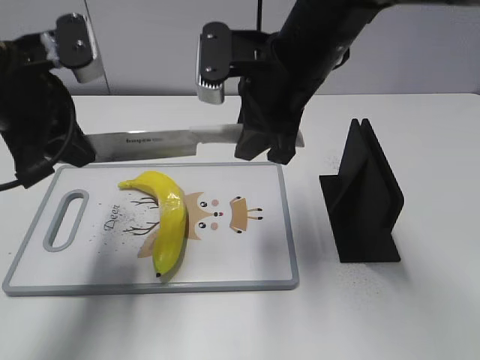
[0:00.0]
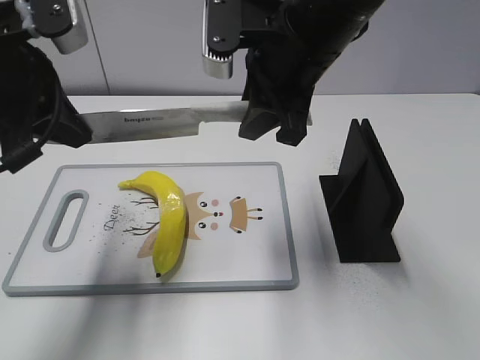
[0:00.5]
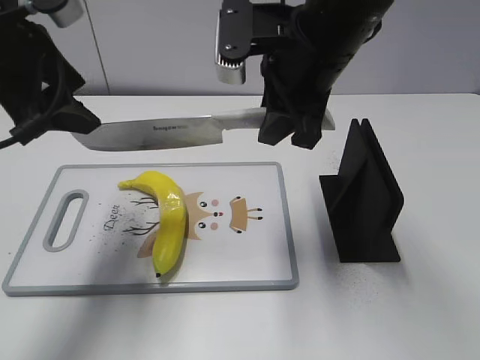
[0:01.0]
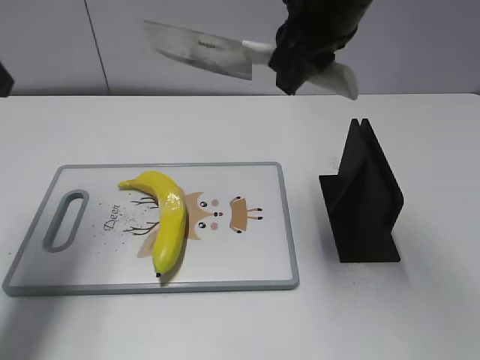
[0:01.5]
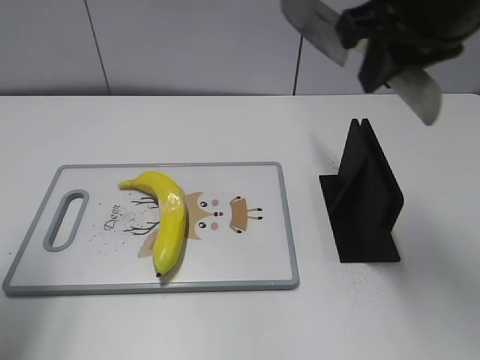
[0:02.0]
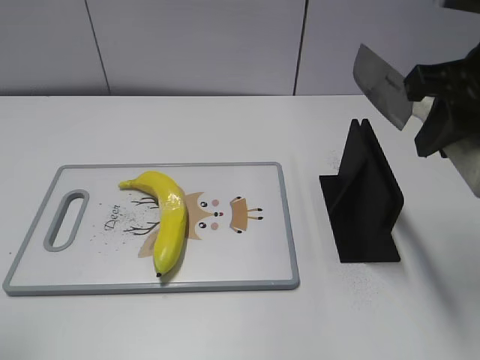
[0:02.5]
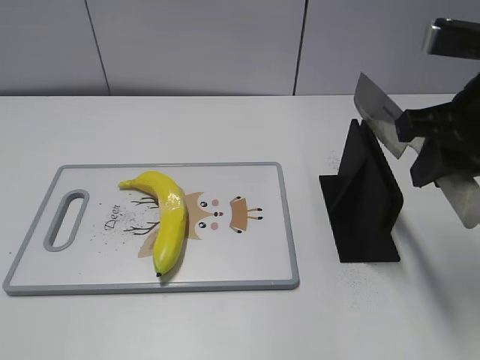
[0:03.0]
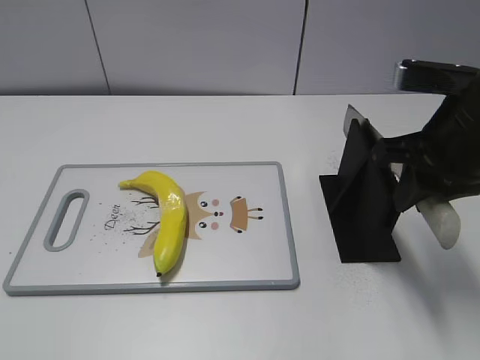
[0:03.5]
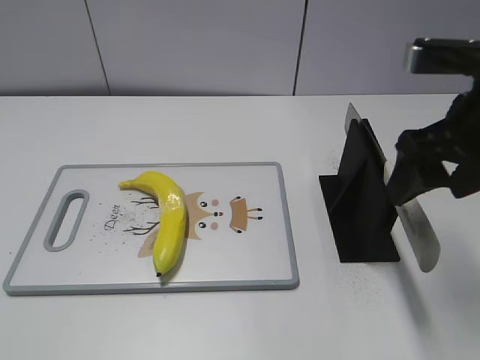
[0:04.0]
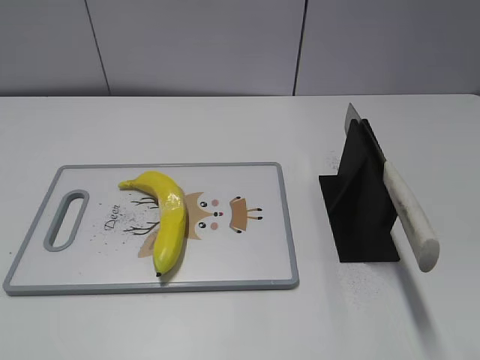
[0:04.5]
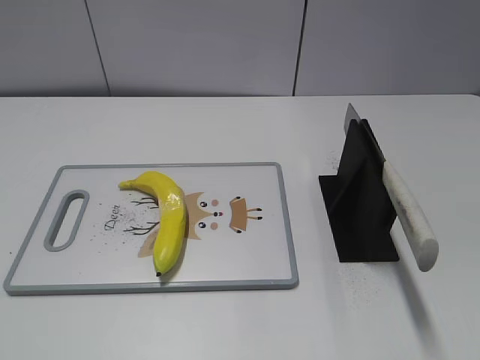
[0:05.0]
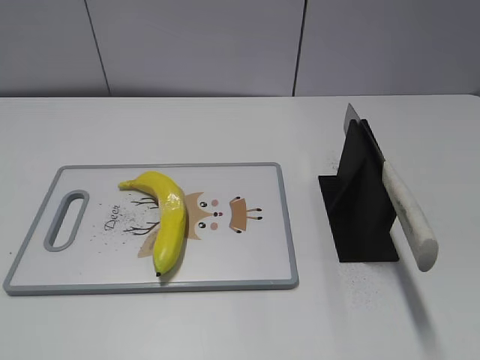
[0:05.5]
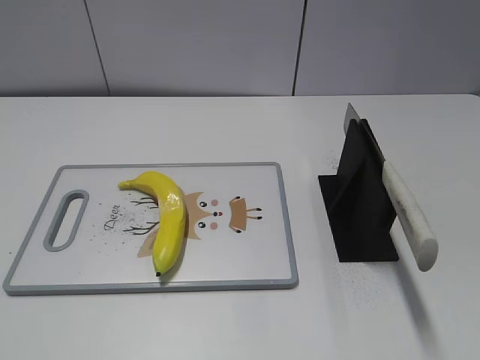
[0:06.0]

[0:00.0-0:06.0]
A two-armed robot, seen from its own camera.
Task of the whole recording: cut plastic banana.
Step, 0:00.5 to 0:01.0: Cut the banana with your right hand.
Step, 0:02.0 to 0:03.0: Secure the blade with your left hand.
Step, 0:03.5 to 0:06.0: Place the knife on the storage rack with your right hand.
0:00.0 to 0:02.0: The left gripper is displaced to the left and backward by approximately 10 cm, and opens, while the right gripper is displaced upward, to the right and backward by roughly 15 cm.
0:02.0 to 0:04.0: The left gripper shifts roughly 25 cm backward, while the right gripper goes approximately 10 cm downward and to the right, and opens.
0:04.0 to 0:06.0: The right gripper travels backward by about 25 cm.

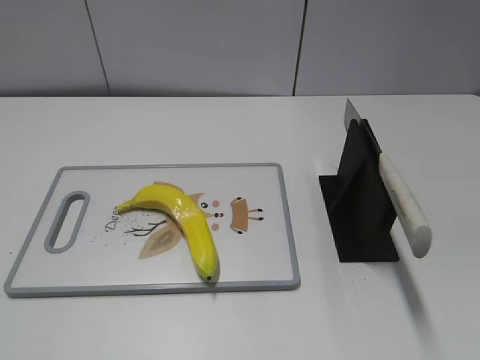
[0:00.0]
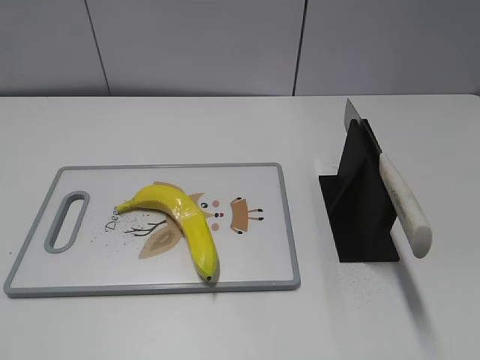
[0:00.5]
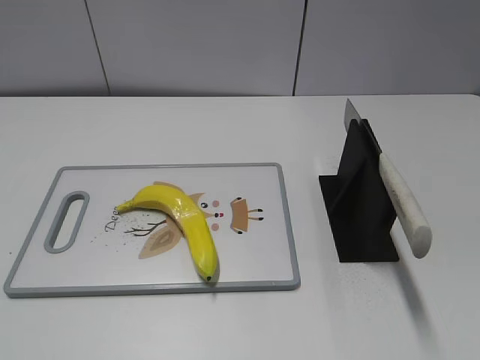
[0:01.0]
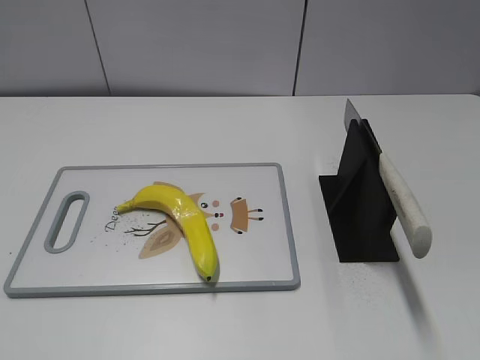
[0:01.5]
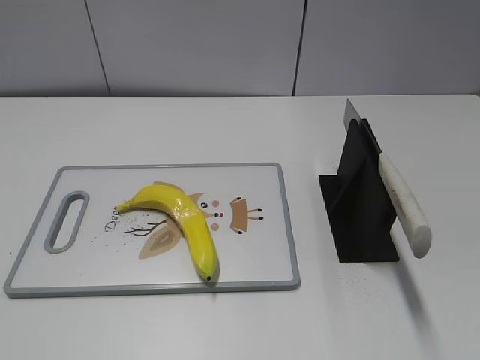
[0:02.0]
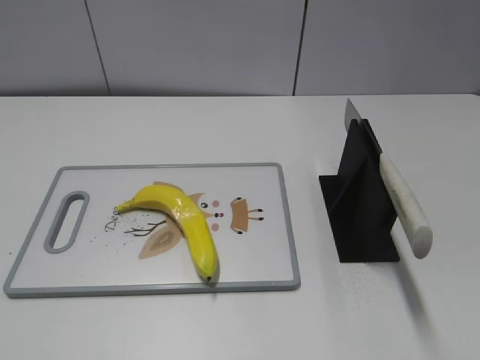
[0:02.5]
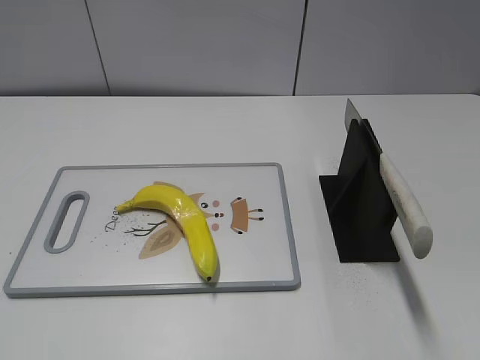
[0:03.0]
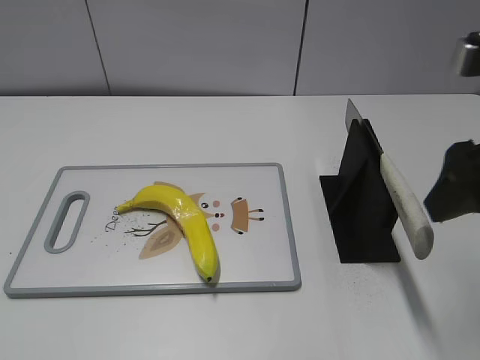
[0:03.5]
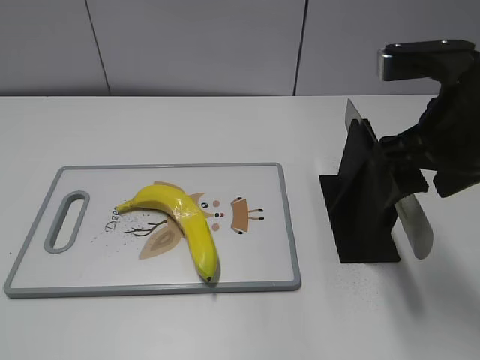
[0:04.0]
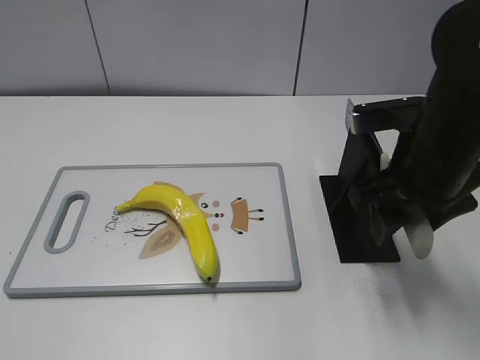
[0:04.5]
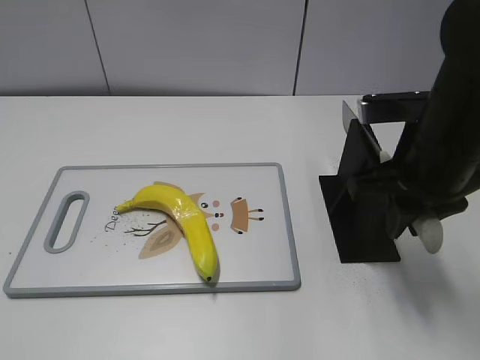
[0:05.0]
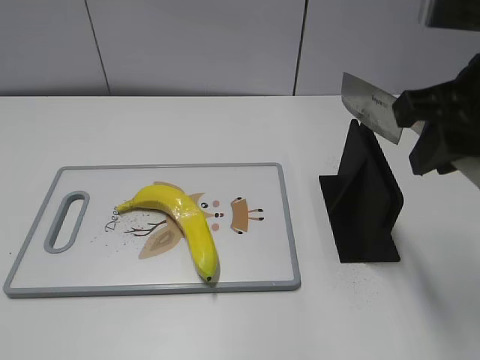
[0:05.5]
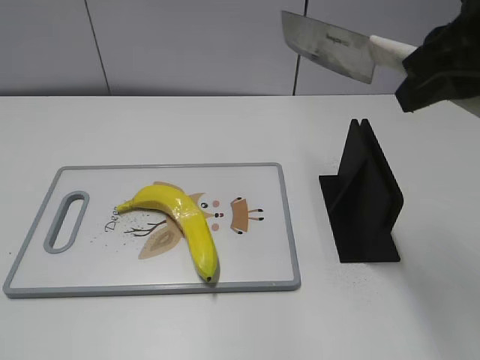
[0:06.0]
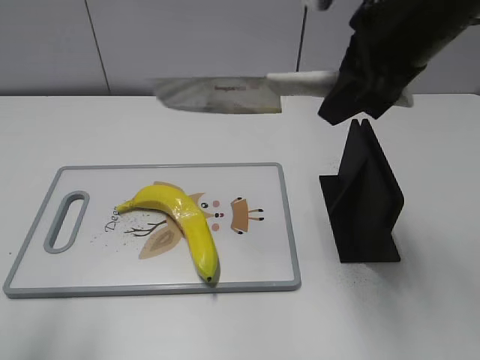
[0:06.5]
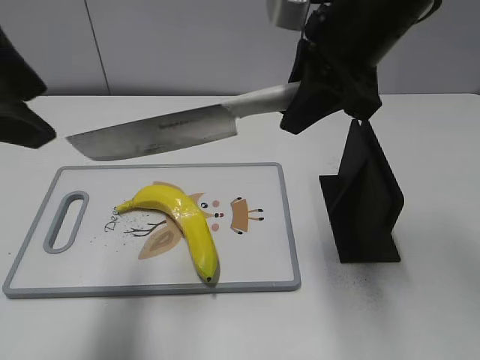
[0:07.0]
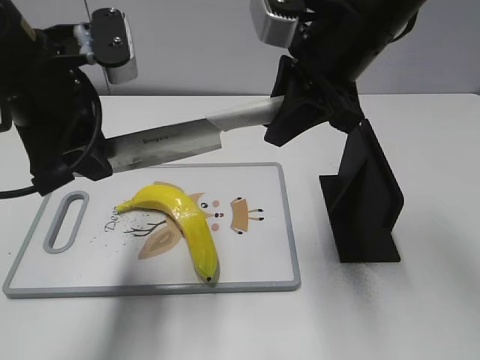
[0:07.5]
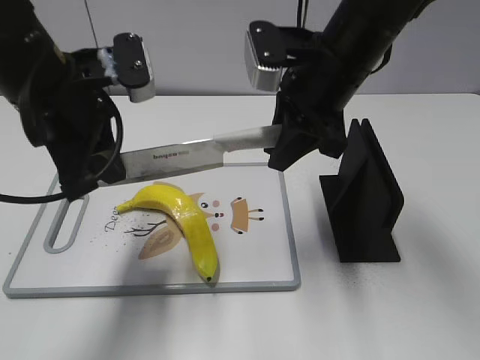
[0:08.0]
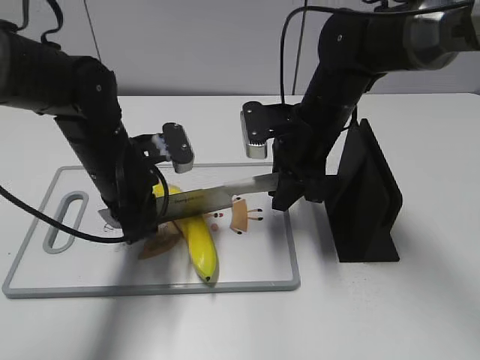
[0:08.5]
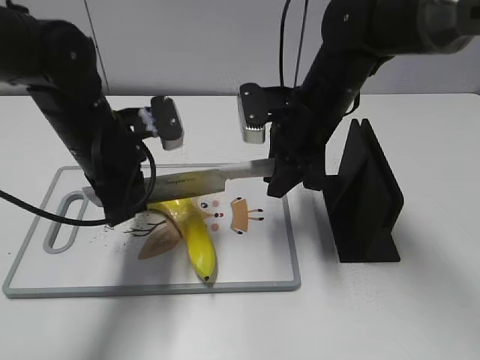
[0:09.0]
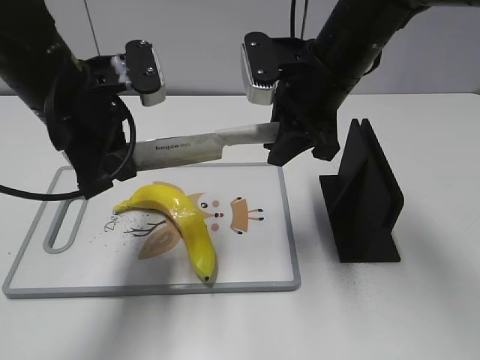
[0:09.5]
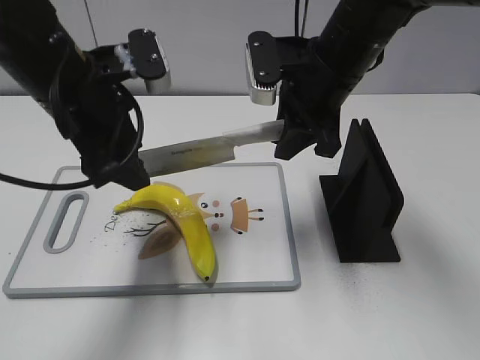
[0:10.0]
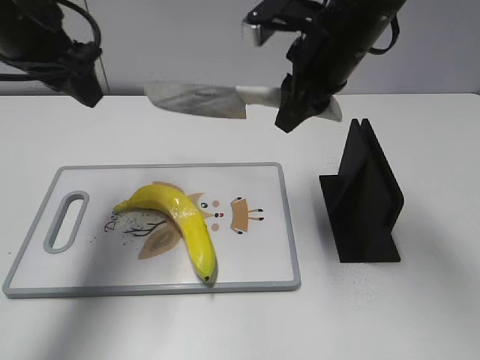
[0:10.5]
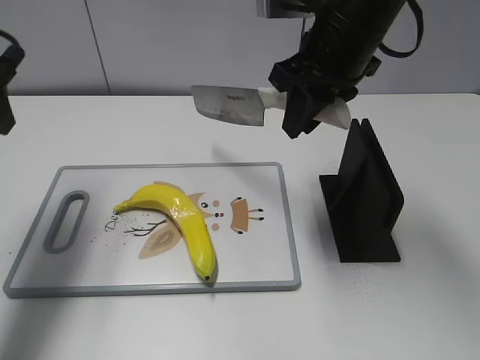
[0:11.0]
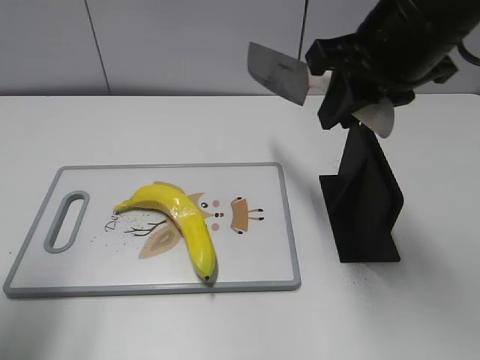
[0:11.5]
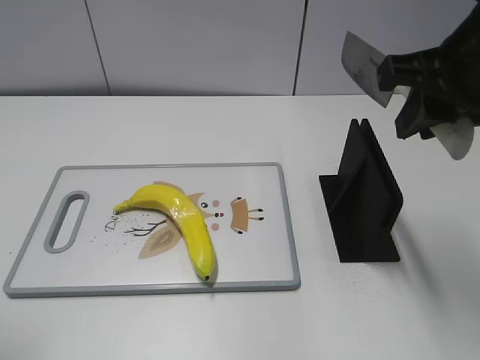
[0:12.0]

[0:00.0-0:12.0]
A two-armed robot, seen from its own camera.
Task of the whole recording: cut plastic banana.
Step, 0:00.0 to 0:05.5: Grab the knife handle with your right hand.
Step, 0:06.0 to 0:09.5: Lift the knife with your right hand.
Step, 0:10.0 to 0:10.5: Cut the banana with your right hand.
0:02.0 to 0:04.0: The right gripper travels forward and to the left by some 25 cm.
0:04.0 to 0:06.0: The right gripper moves upward, roughly 10 cm, and closes its fingers.
0:06.0 to 0:08.0: The left gripper travels forward and to the right by approximately 30 cm, and closes its fingers; the right gripper is displaced downward, forward and to the left by roughly 15 cm.
0:08.0 to 0:10.0: The right gripper goes downward and returns, approximately 10 cm each way. The left gripper travels downward and back again, about 10 cm each way, and opens its fingers.
0:10.0 to 0:12.0: The left gripper shifts roughly 25 cm backward and to the left. The right gripper is displaced backward, to the right and upward by some 15 cm.

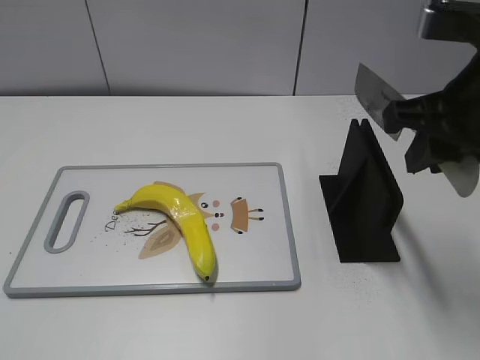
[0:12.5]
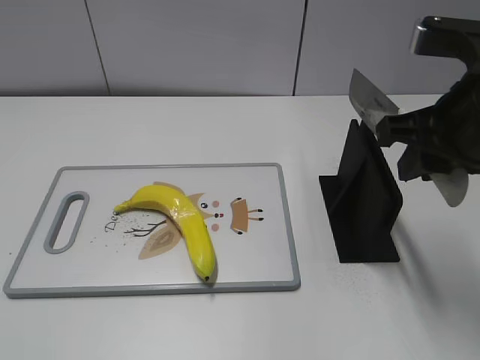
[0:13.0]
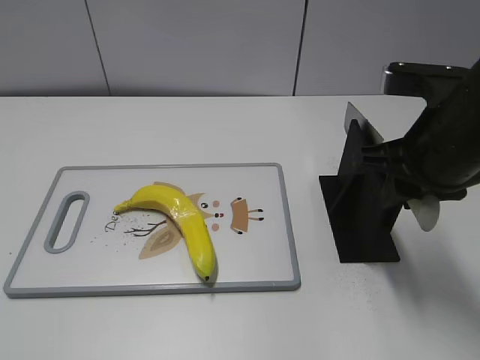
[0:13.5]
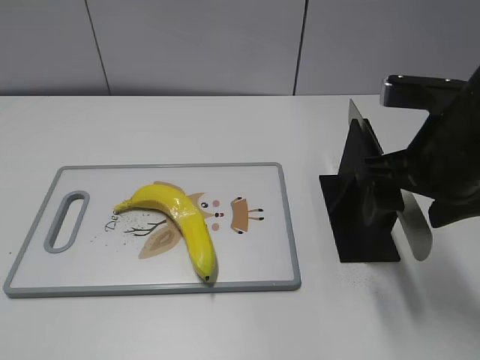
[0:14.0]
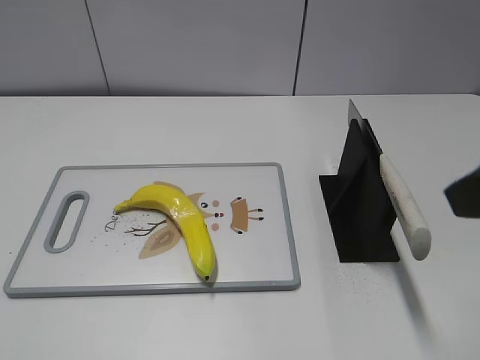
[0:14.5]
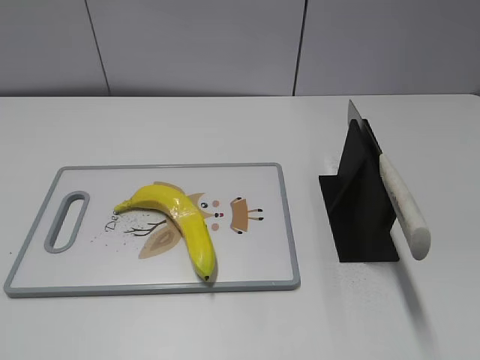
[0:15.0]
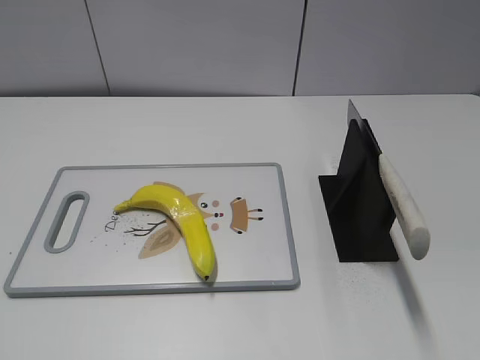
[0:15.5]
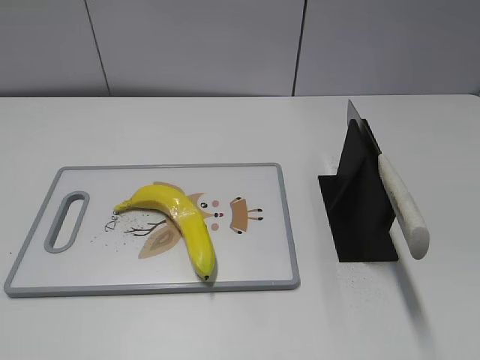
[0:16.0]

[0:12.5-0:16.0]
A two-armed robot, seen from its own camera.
Task of the whole recording: cut plastic banana.
Step, 0:12.5 to 0:16.0: Place the knife on the storage rack with your right hand.
0:12.5 to 0:14.5: The right gripper shifts about 10 cm backward, and opens up.
0:14.5 to 0:16.0: The right gripper shifts about 15 cm backward and to the right.
